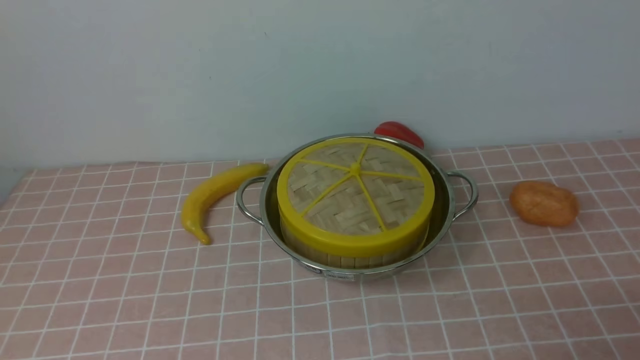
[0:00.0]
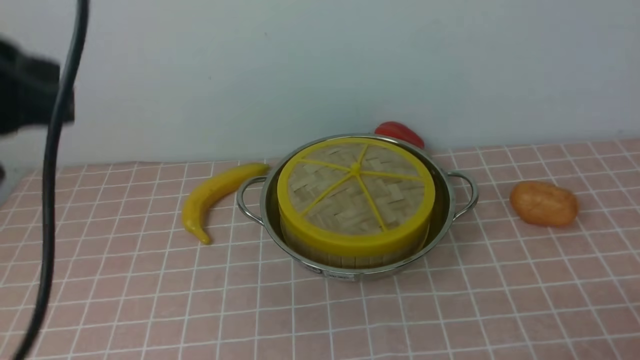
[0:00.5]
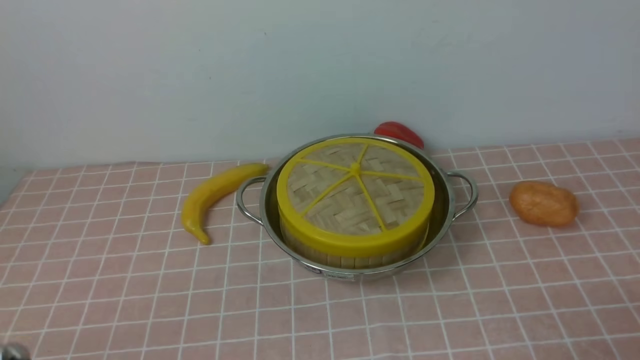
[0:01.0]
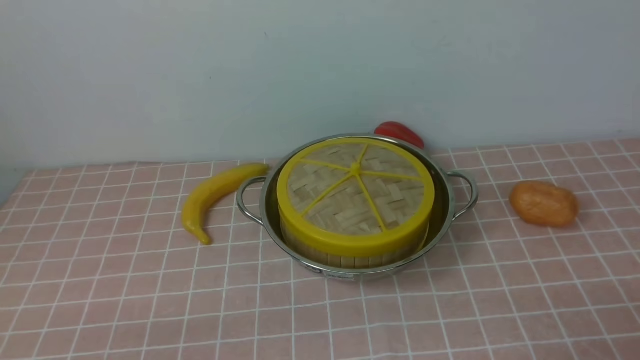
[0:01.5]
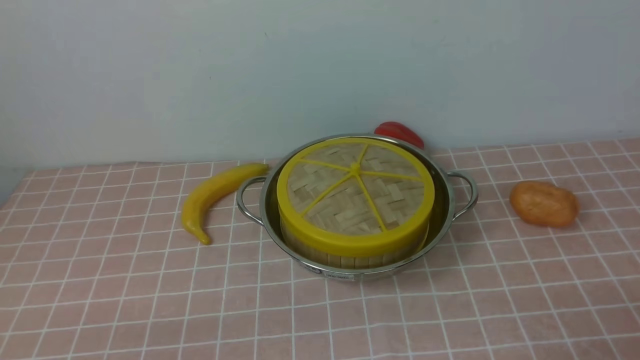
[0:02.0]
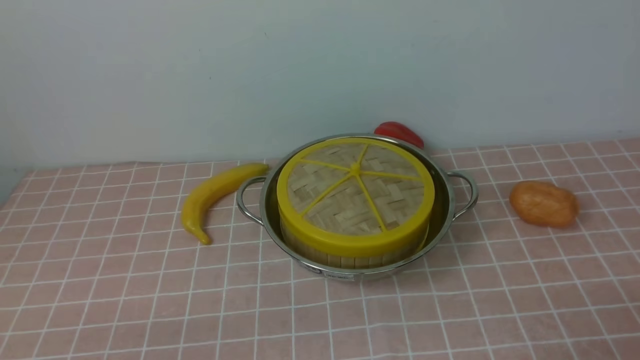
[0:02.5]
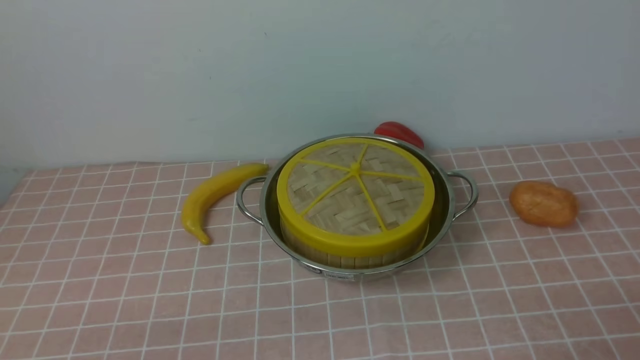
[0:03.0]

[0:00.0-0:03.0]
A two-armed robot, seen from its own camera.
Task of the whole recording: place the steamer in the pot on the pink tablecloth, and put the lid on the steamer.
0:01.5 to 0:03.0: Neither gripper changes place.
